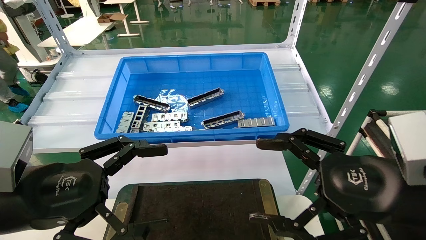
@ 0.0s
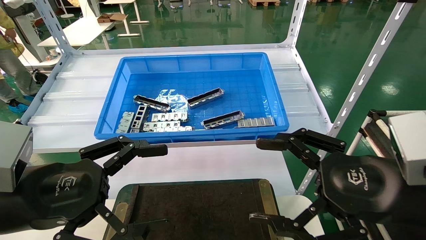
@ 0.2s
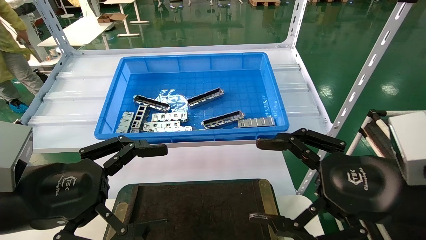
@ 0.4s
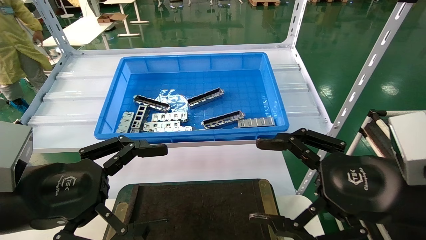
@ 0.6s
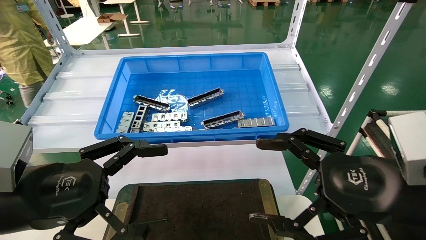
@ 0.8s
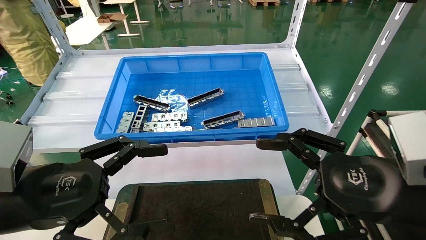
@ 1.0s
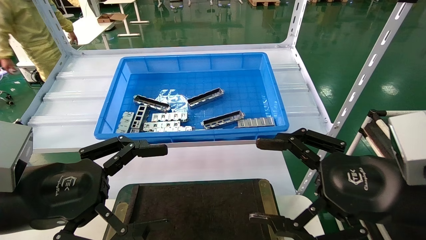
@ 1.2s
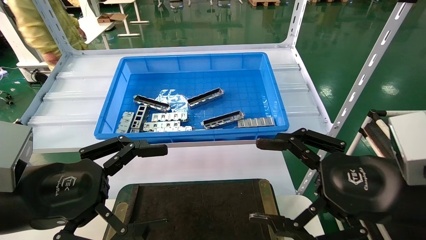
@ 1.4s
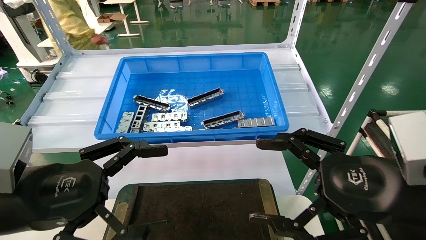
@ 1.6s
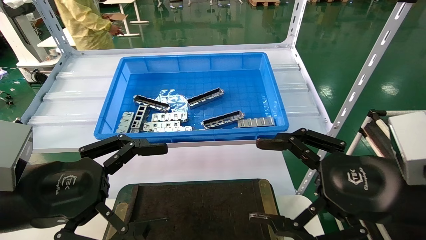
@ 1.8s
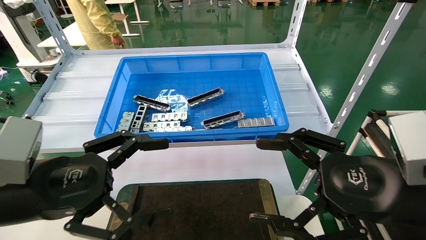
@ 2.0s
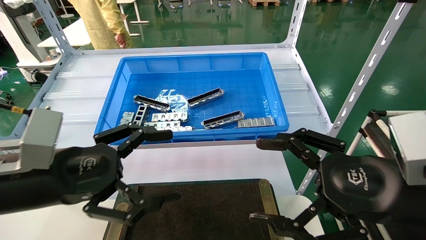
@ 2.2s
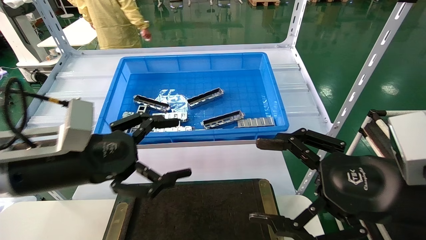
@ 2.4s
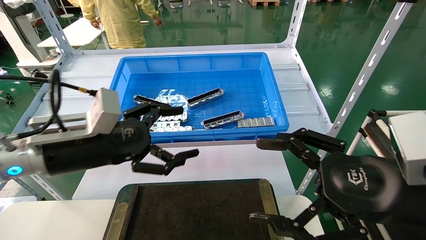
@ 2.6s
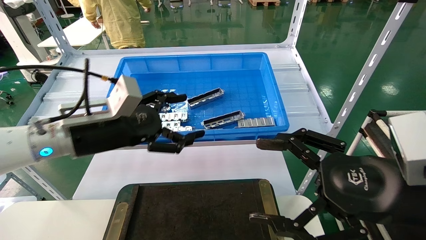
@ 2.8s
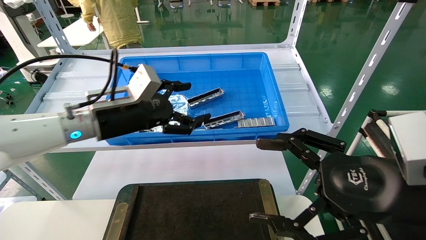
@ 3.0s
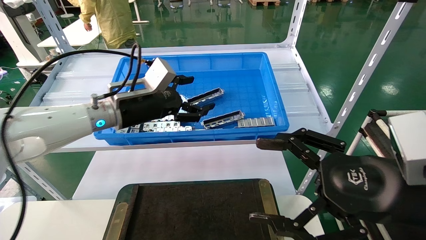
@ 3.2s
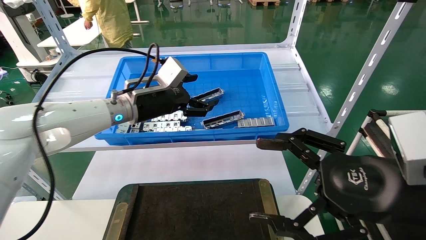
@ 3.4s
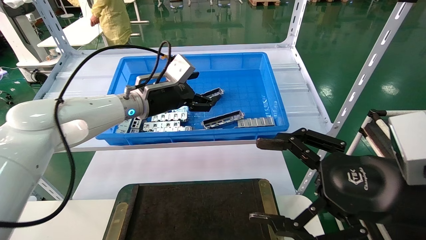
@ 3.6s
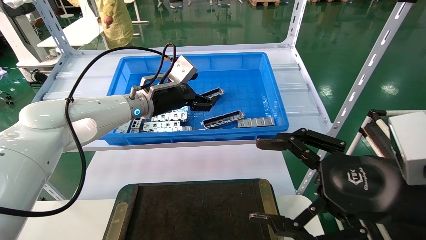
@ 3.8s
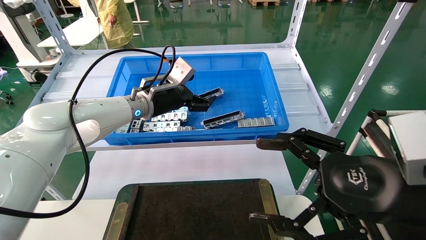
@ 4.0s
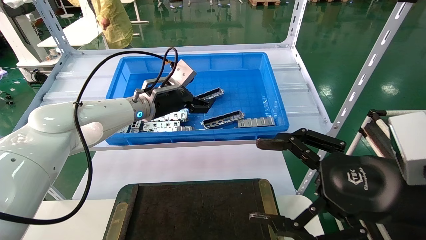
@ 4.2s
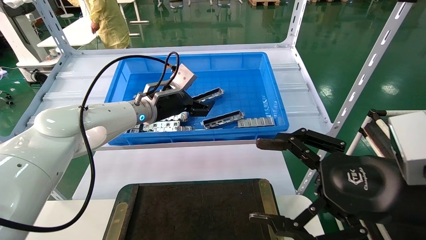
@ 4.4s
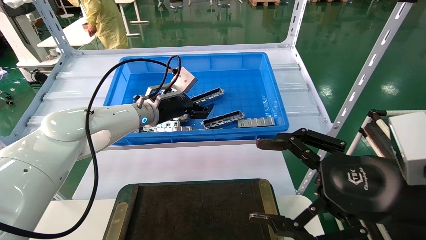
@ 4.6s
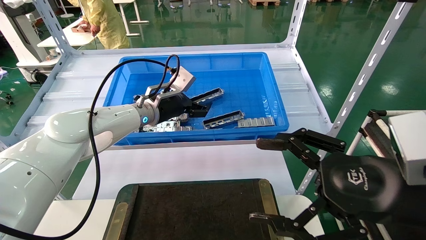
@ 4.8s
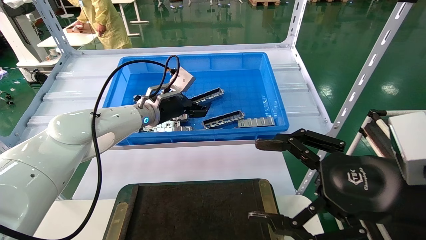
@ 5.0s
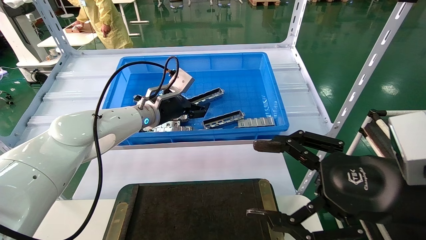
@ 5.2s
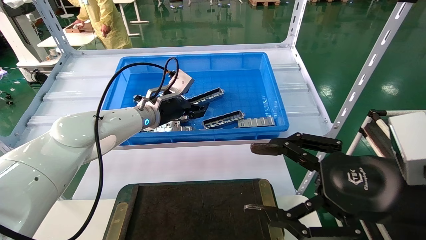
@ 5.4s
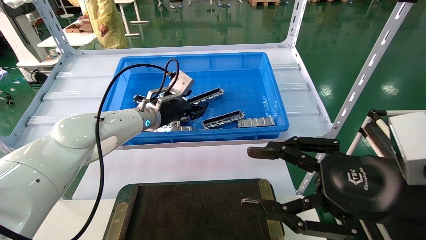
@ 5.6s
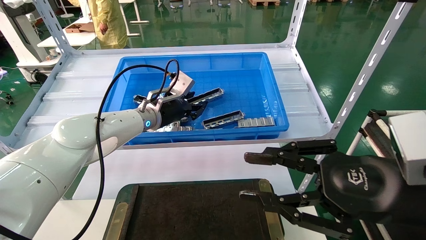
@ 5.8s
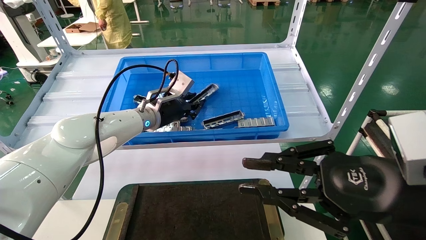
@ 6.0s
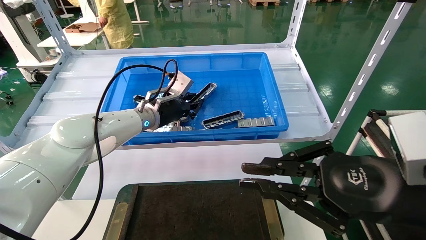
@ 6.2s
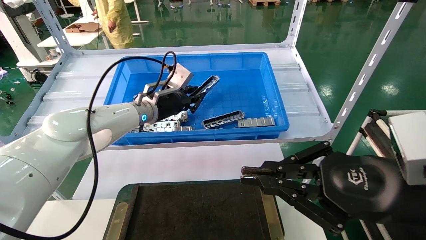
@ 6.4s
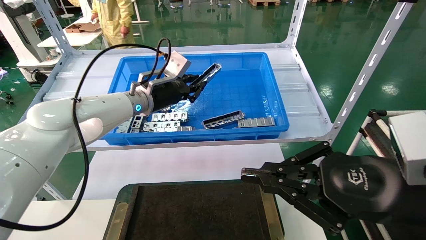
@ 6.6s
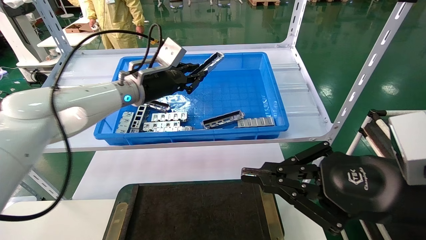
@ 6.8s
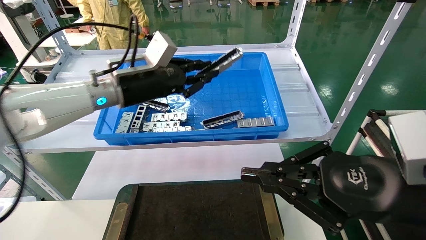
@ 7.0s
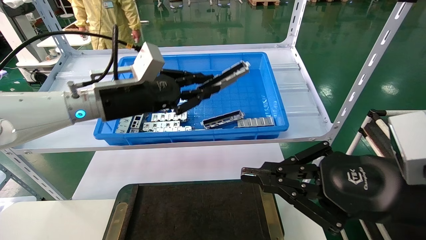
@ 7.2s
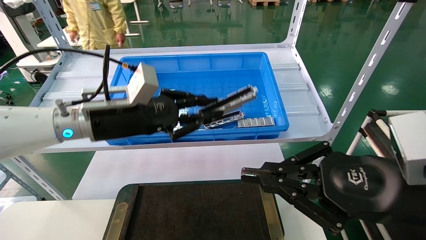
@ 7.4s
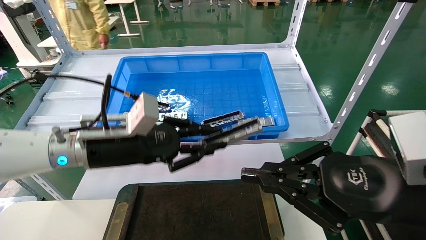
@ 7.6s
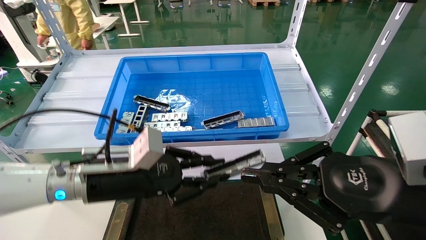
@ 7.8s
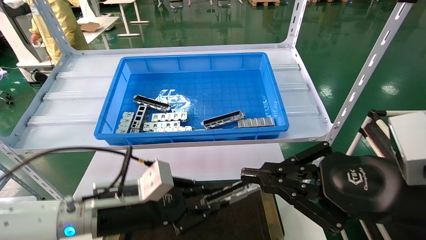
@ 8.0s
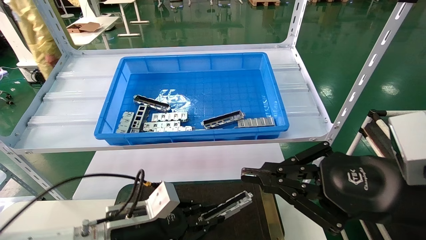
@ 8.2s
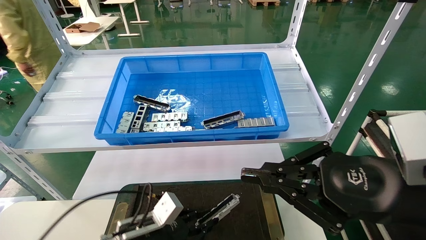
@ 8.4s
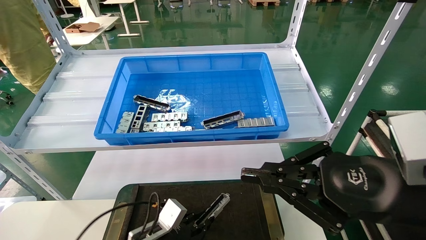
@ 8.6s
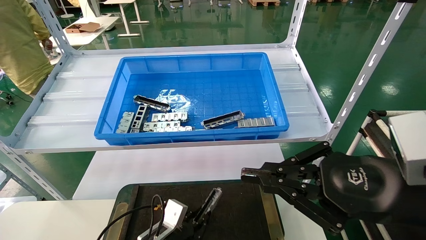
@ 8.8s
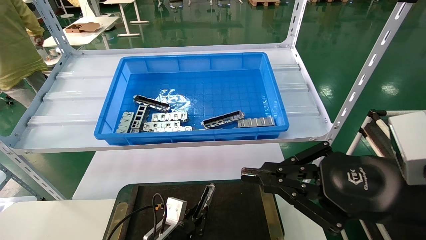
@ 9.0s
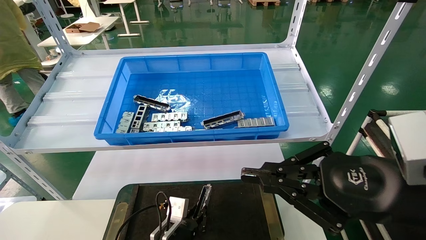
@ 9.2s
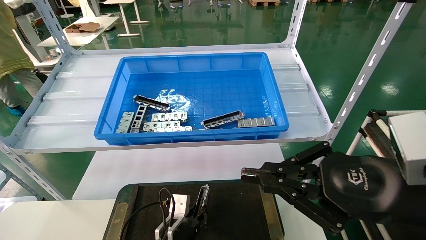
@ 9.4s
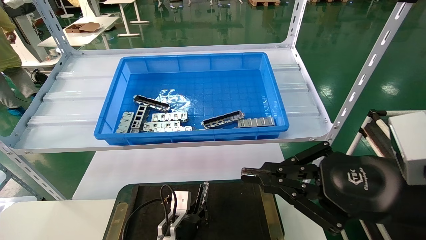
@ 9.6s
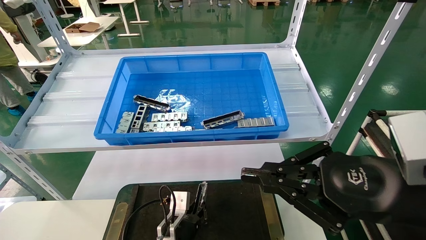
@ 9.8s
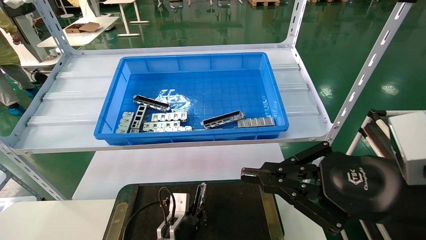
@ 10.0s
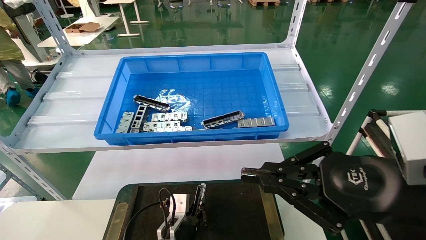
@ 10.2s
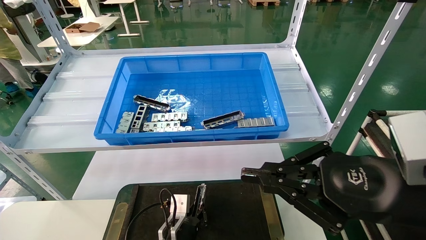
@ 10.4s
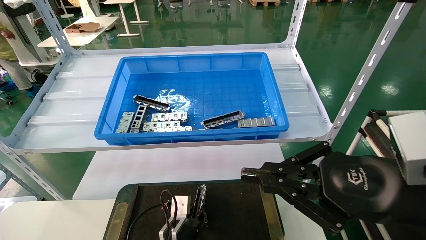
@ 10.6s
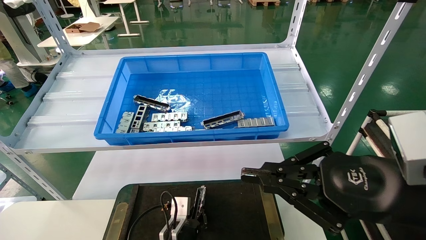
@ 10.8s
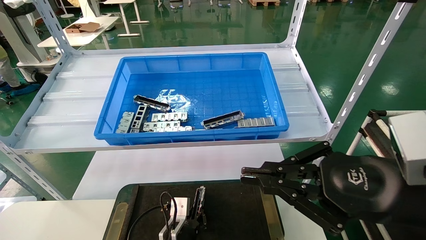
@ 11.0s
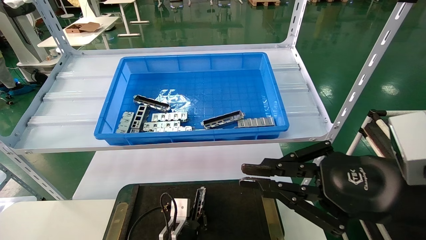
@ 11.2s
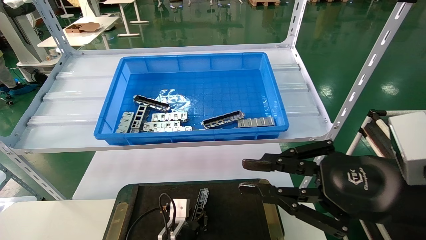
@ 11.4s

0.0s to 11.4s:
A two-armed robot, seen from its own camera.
Task of the whole recording: Grasp the part with one hand and place it on the black container.
Step, 1.8s to 6.0s: Pick up the front USB bracket from the feeding area.
Step, 6.2s to 11.4s: Place the front USB bracket into the box.
0.0s to 1.4s: Both grippers stay put.
1.4s to 2.8s: The left gripper shifts some 15 cm forward.
2.8s to 4.2s: The left gripper heads forward and to the right, covering roughly 15 cm.
4.2s to 5.6s: The grippers make only small movements.
5.6s to 7.2s: The right gripper closes. Meanwhile the left gripper moves backward and upward, about 10 cm, and closes up.
7.2s to 8.6s: The left gripper moves downward, approximately 30 cm.
8.6s to 10.0s: The left gripper heads to the right, covering some 5 cm.
10.0s to 11.4s: The grippers stay close to where they were, moving slightly.

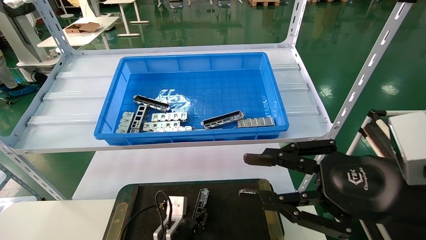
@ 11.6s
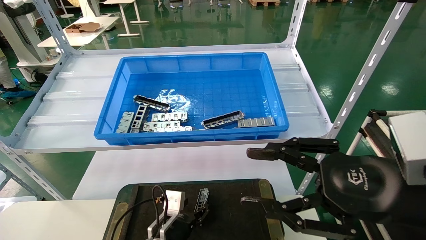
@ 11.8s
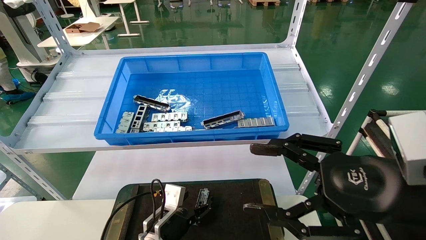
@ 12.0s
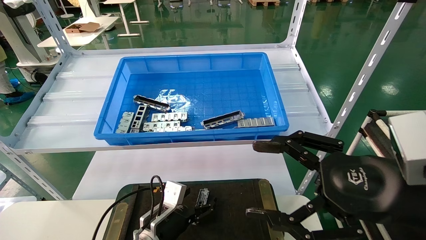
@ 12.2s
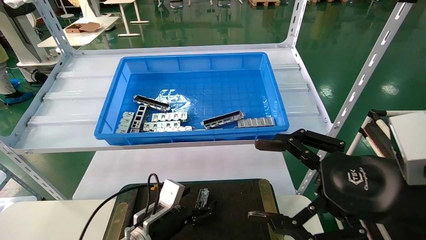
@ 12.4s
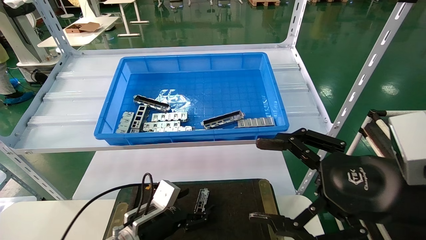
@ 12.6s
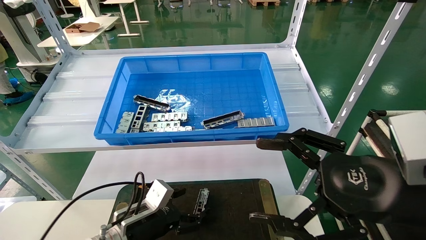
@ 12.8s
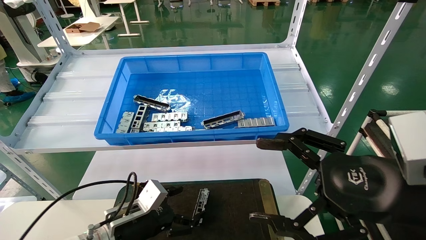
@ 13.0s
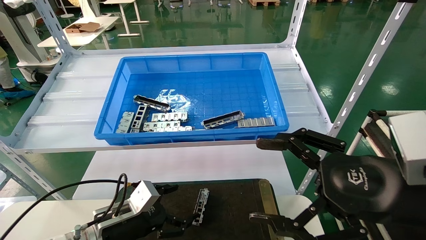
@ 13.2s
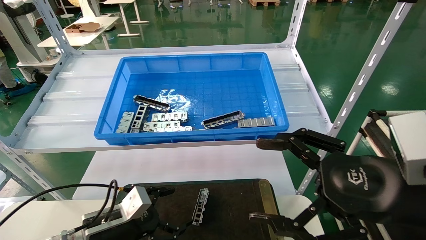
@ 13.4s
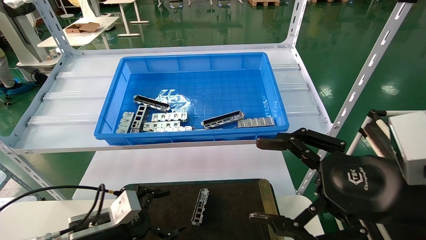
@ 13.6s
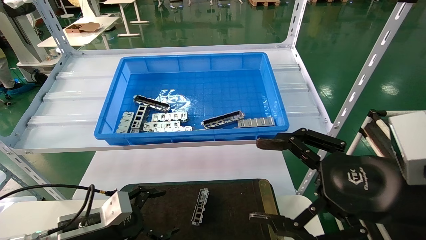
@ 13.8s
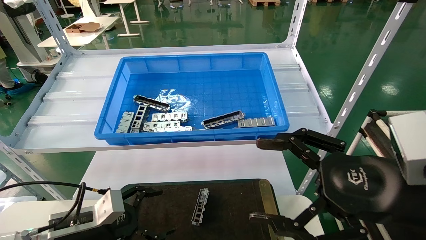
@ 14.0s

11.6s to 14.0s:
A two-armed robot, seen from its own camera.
Task of the whole recording: Grasp the part with one hand and place it on the black container.
11.6s to 12.8s: The right gripper opens its fingers. Meanwhile the left gripper is displaced to the left and upward by some 10 cm, and opens up.
12.8s to 14.0s: The left gripper goes about 10 cm to the left.
